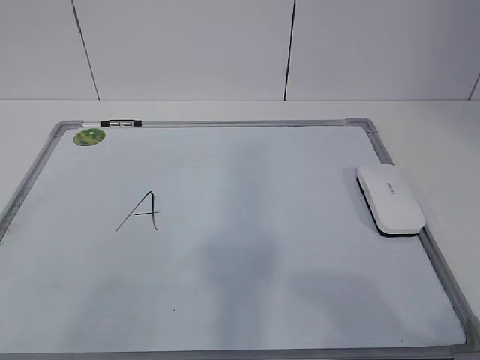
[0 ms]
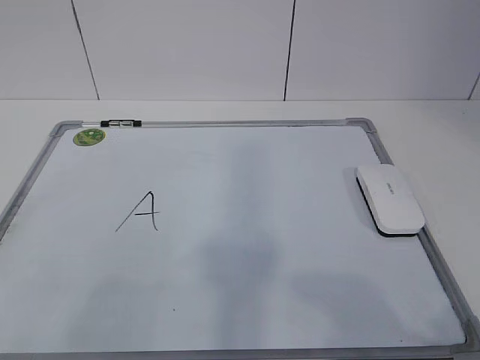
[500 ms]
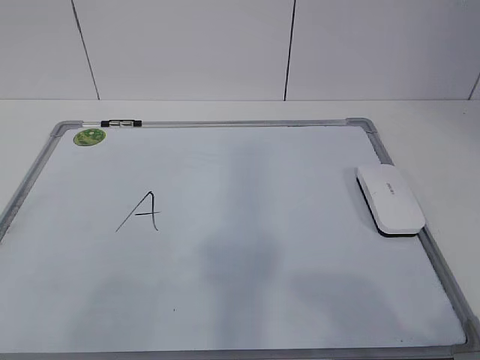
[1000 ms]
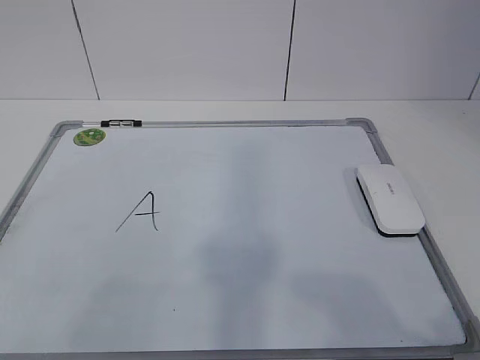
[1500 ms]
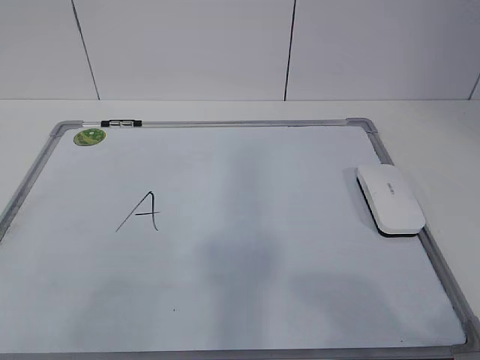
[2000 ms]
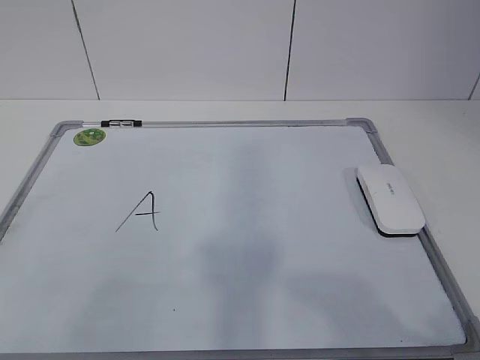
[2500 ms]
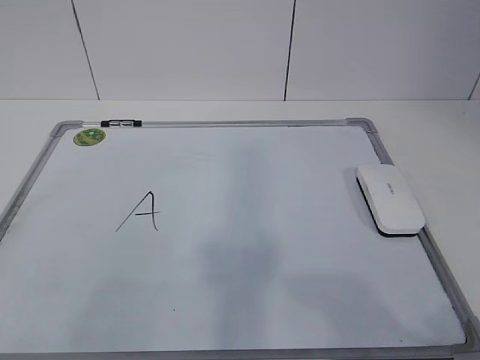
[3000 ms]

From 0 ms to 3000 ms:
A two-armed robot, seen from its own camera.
Task of the whole recording: pick up the eraser on the blackboard and erase the letter "a".
From 0 ms to 3000 ms: Both grippers stay about where they are.
